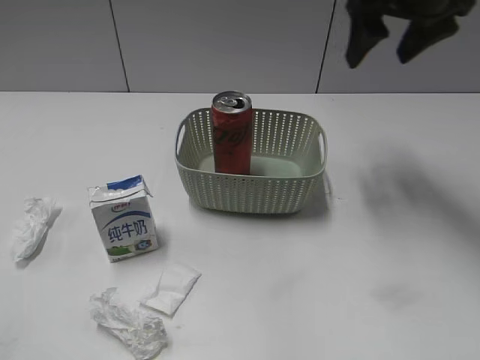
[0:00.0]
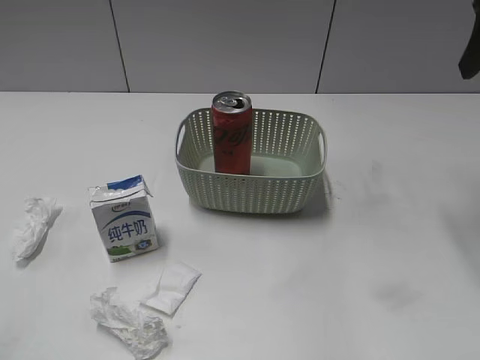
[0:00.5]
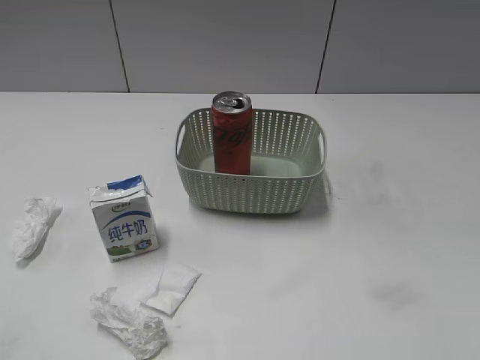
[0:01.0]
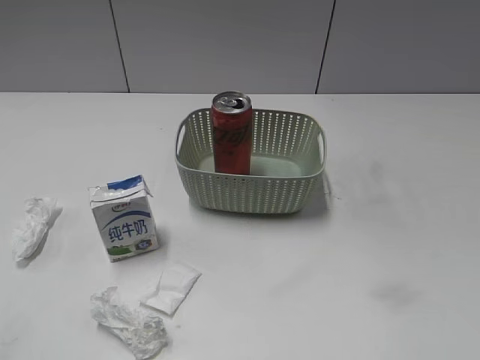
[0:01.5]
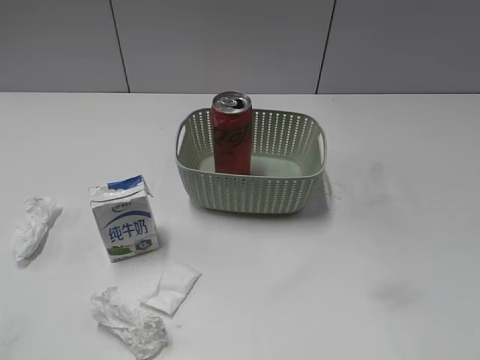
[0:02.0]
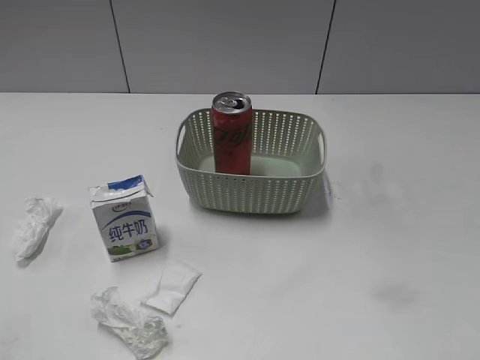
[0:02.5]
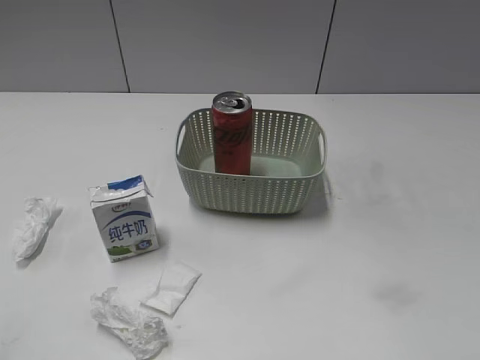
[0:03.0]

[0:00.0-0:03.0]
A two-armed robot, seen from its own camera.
0:00.0 to 0:01.5: The right gripper moves backward, about 30 cm.
